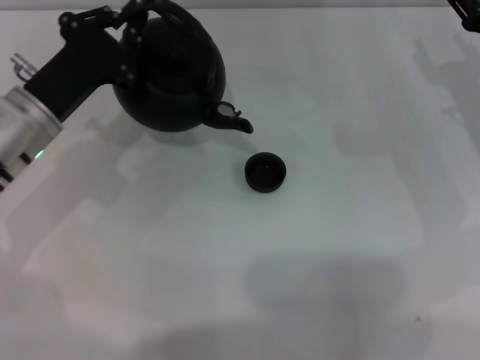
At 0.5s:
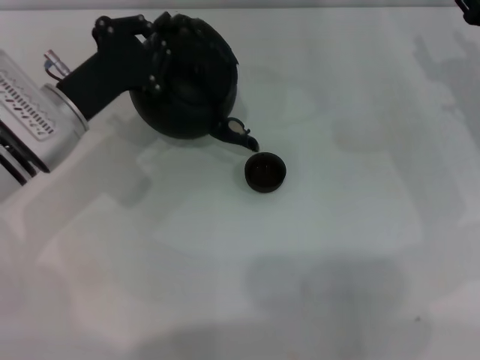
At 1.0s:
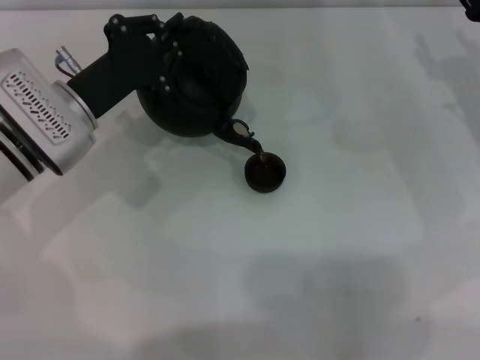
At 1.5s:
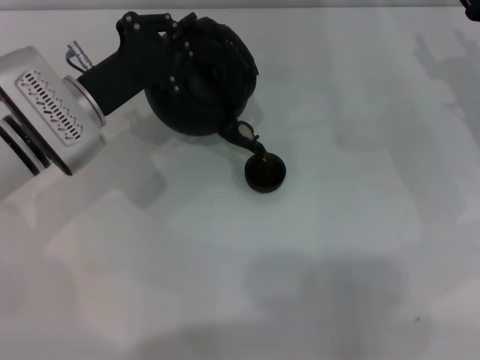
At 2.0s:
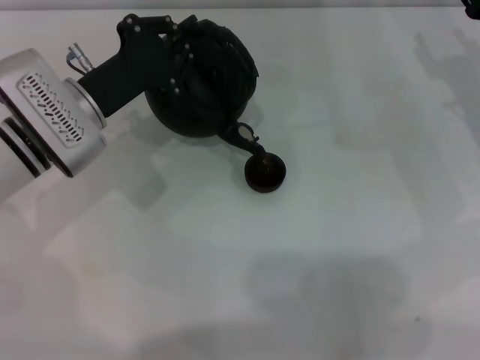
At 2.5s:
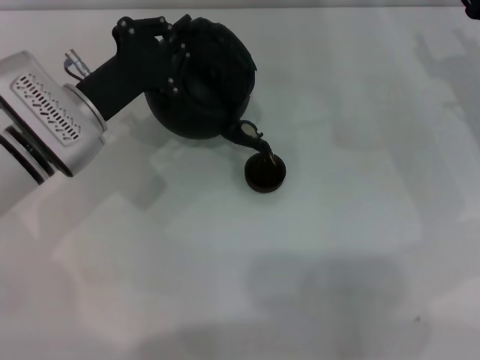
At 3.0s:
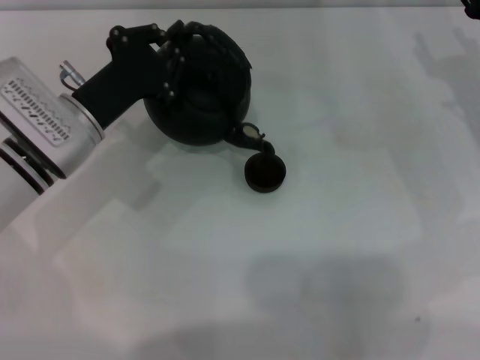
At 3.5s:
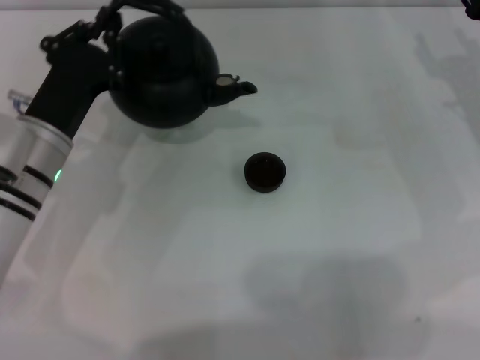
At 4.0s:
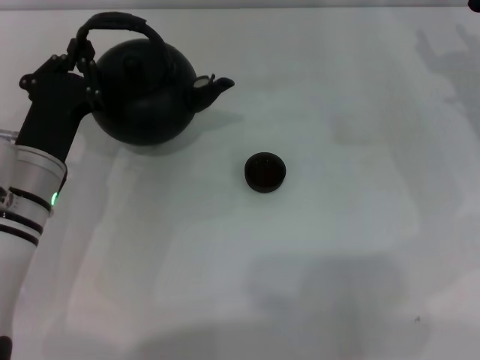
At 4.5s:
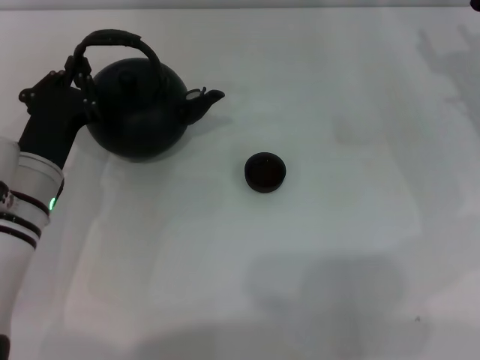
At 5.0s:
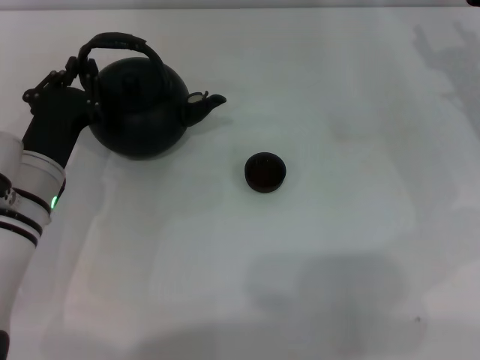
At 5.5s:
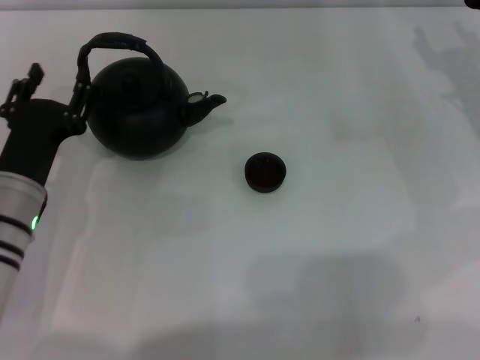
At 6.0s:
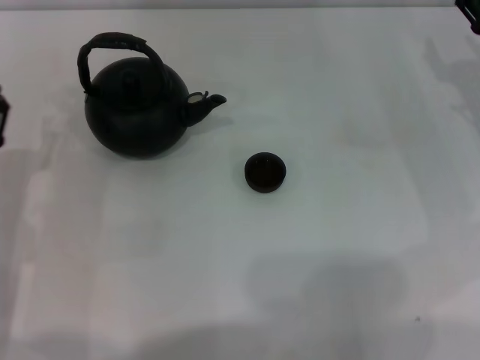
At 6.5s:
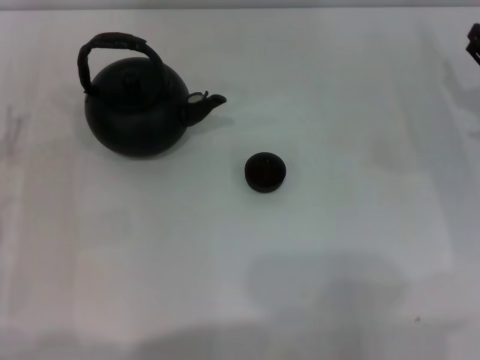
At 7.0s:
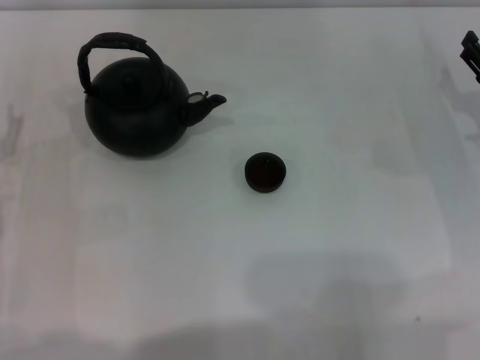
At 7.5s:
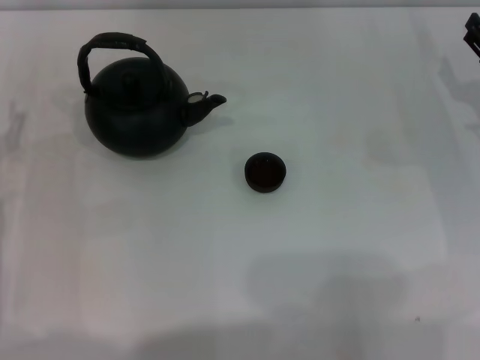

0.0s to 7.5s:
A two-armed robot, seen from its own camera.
Task of the whole recording: Grasp the handle of the teapot with one hand and pour tea into the teacup.
Step, 0.0s to 3.0s: Pour tea into the teacup with the left gripper.
Step, 3.5s to 5.5s: Put down the teapot with the left gripper.
0.0s to 2.0s: The grippers make only small movements.
2.0s to 4.0s: The left gripper travels backward by roughly 5 cm.
4.0s to 5.5s: The left gripper opens its fingers.
5.5s to 7.5s: The left gripper goes roughly 10 cm to the left, and opens its fingers.

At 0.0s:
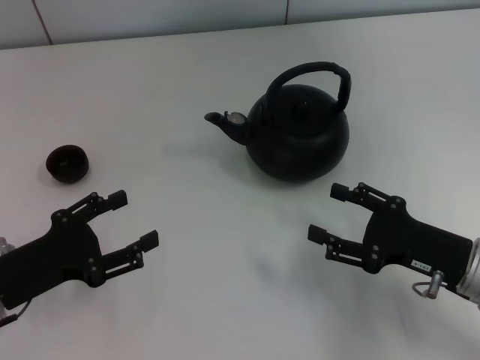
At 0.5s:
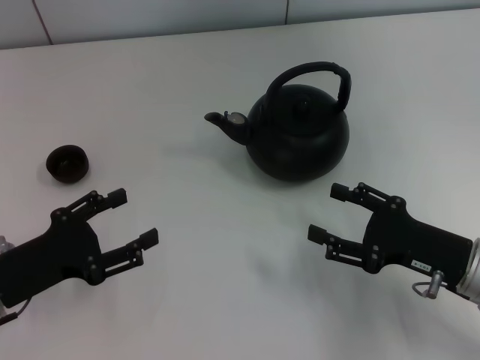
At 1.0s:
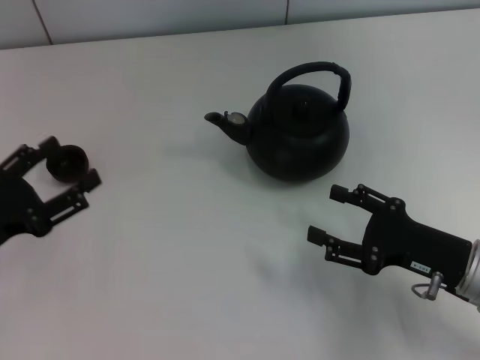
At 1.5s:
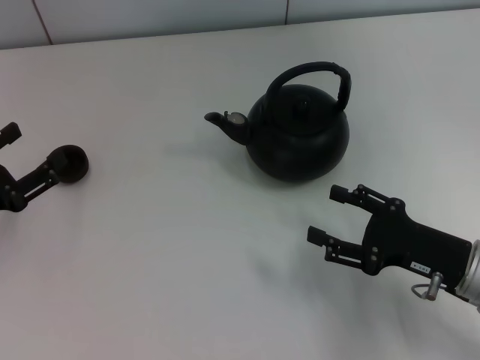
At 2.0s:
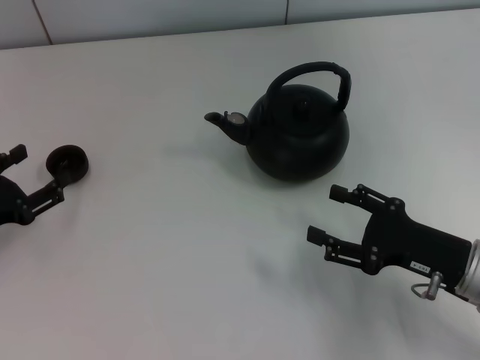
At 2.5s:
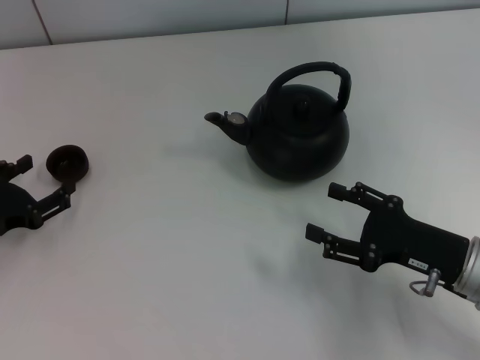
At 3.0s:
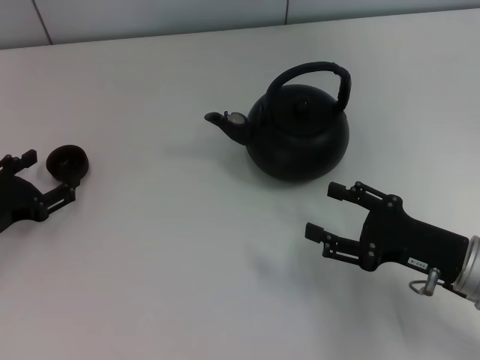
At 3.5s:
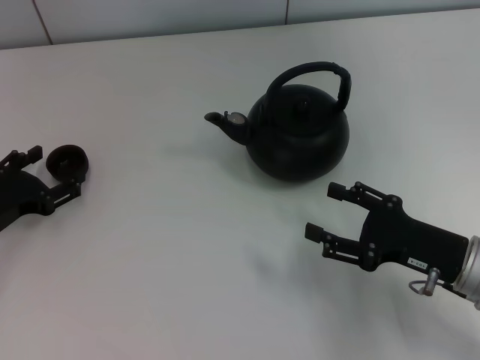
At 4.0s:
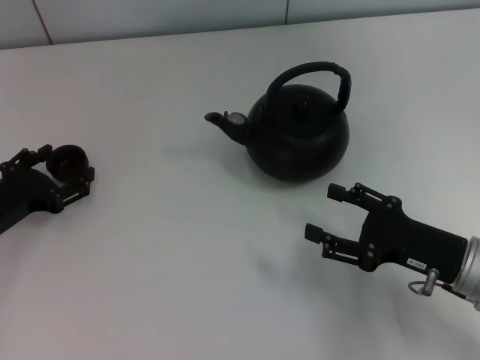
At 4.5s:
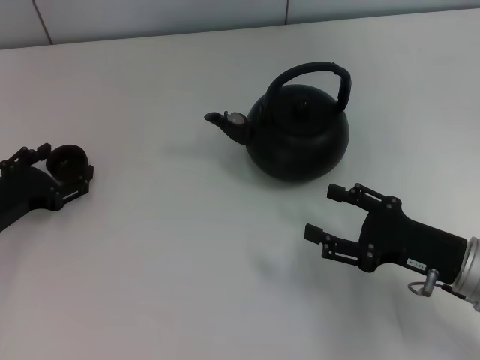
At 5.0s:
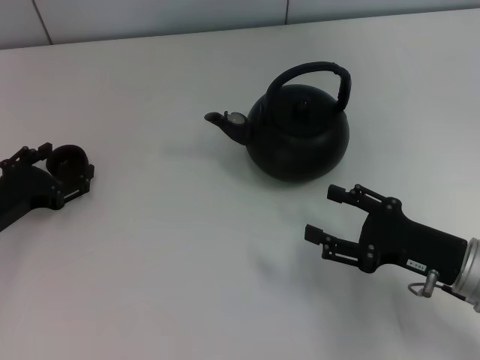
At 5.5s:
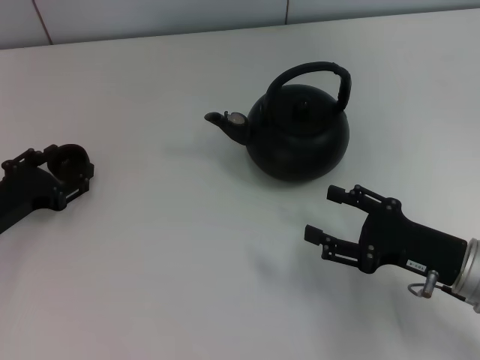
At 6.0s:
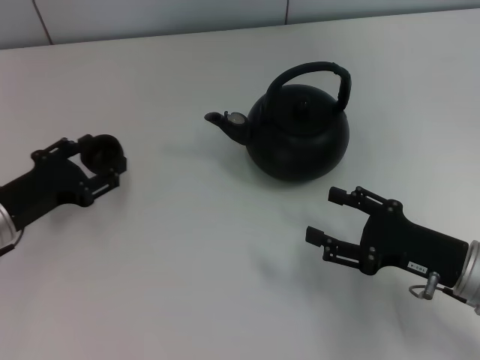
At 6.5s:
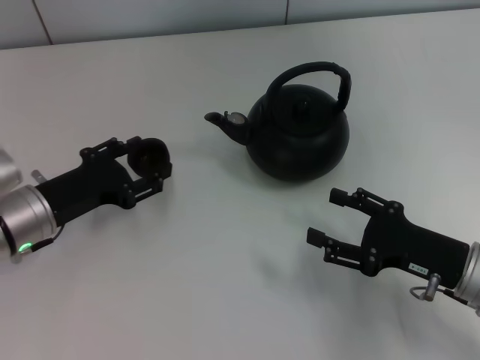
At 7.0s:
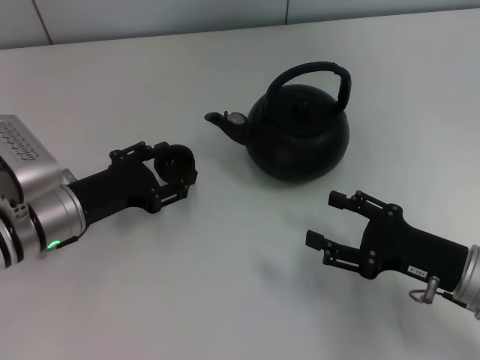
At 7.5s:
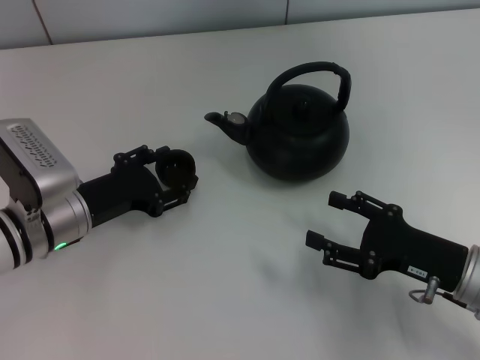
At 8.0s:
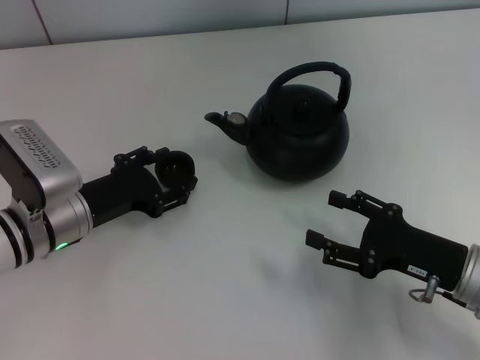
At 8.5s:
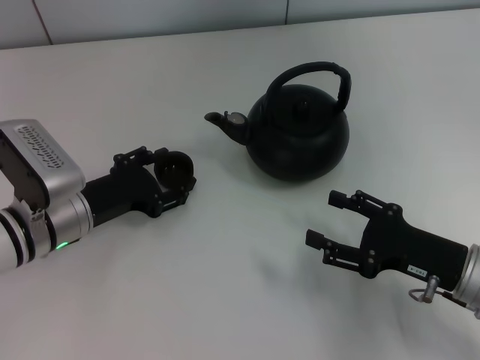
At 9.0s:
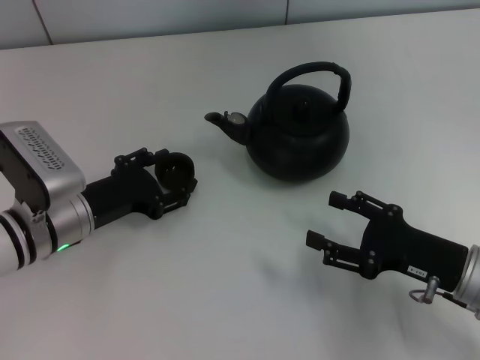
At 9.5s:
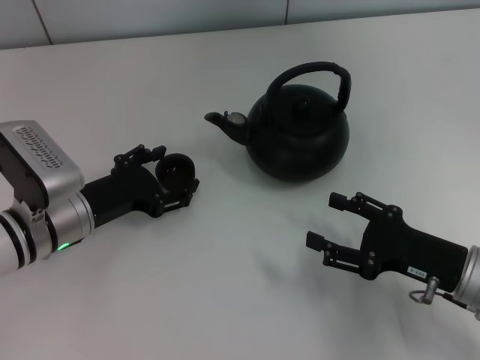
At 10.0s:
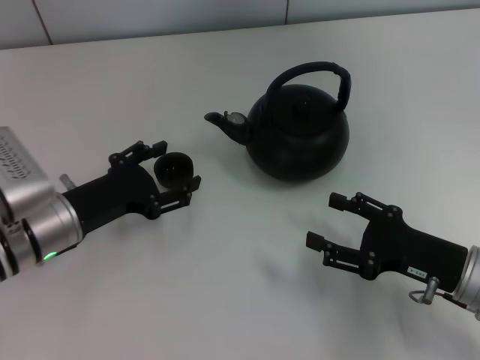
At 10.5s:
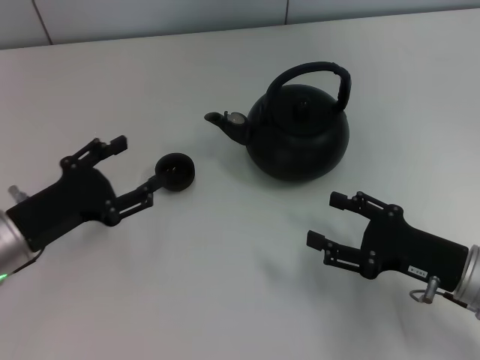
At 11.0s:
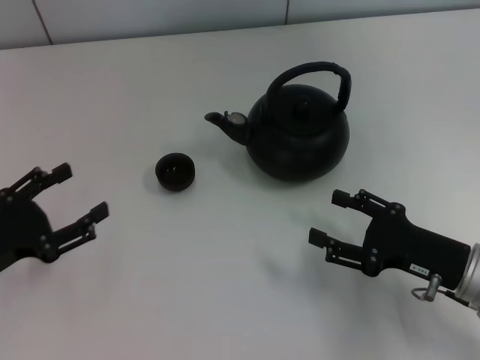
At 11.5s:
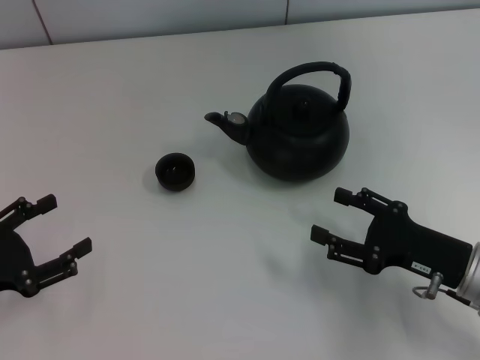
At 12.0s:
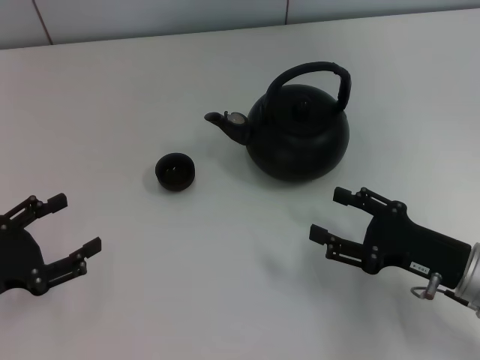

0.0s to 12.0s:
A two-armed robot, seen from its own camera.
Task of the whole recording: Grasp the handle of the teapot with one hand and pour tea into the teacup.
Step, 0.0s to 6.5s: Pick up the teacup with the left gripper.
Step, 7.5s to 10.5s: Place the teacup in the center of view with the left gripper.
0.0s to 2.0s: The left gripper shifts by about 5 cm.
2.0s to 4.0s: There are only small adjustments of the grippers.
4.0s to 6.0s: The left gripper closes.
6.0s to 8.0s: The left gripper moves to the right, roughly 5 cm, and opens up.
8.0s to 10.0s: The left gripper opens.
10.0s to 12.0s: The left gripper moves to the left and backward, approximately 15 cm.

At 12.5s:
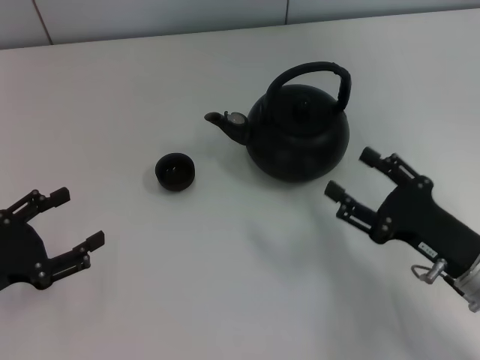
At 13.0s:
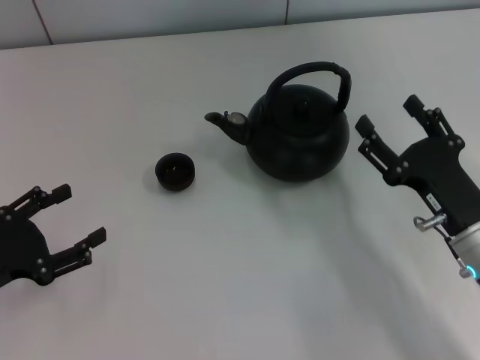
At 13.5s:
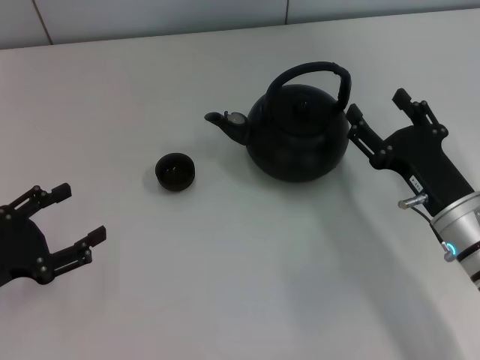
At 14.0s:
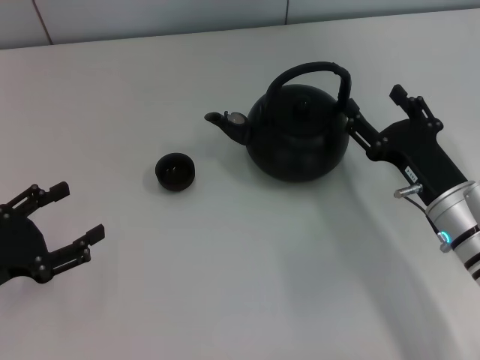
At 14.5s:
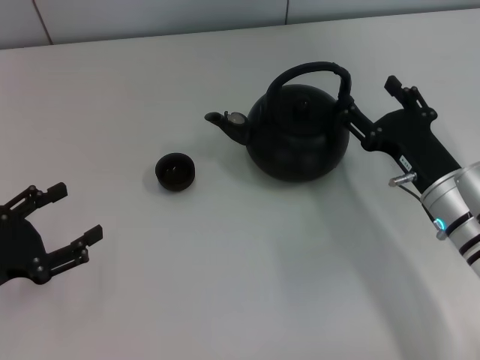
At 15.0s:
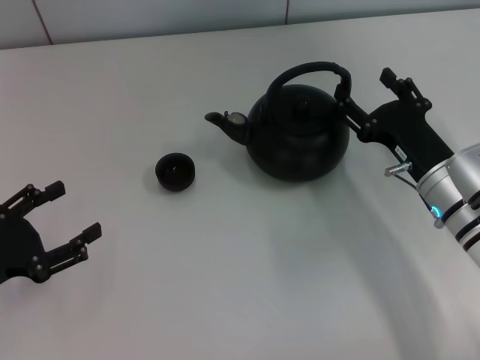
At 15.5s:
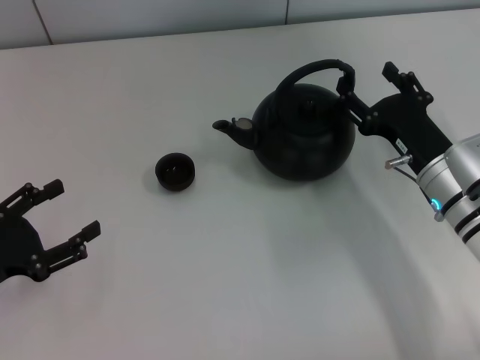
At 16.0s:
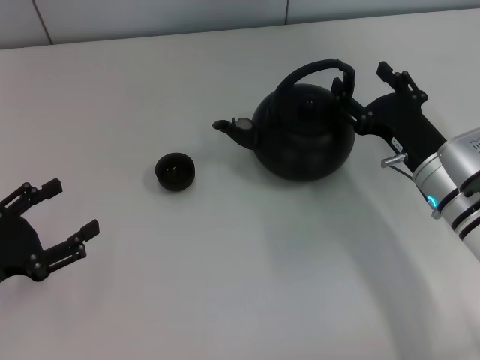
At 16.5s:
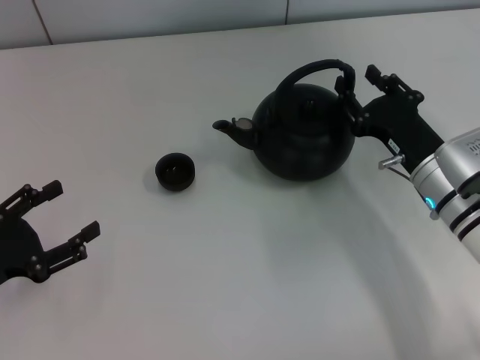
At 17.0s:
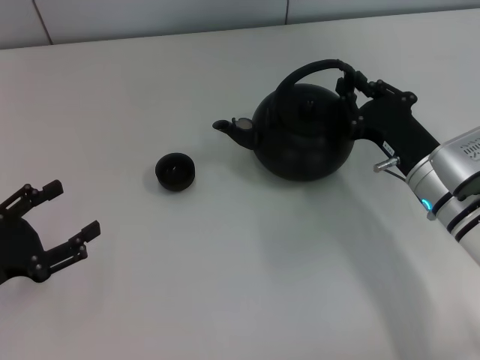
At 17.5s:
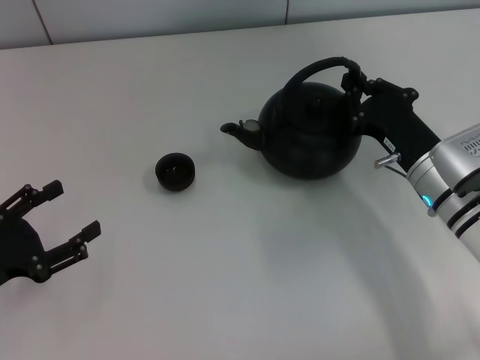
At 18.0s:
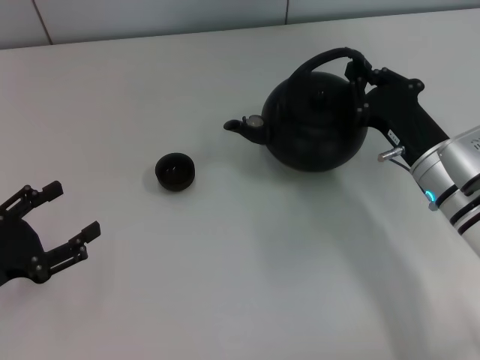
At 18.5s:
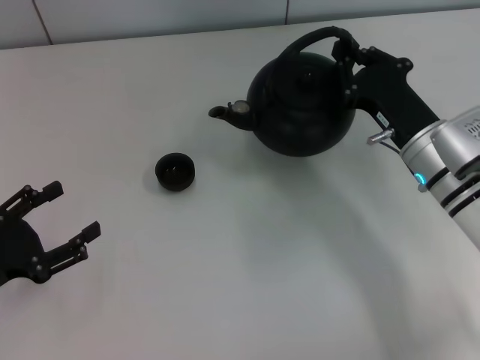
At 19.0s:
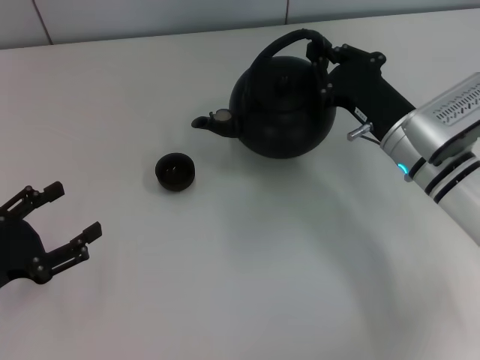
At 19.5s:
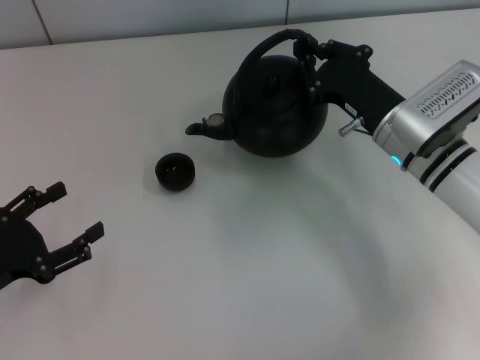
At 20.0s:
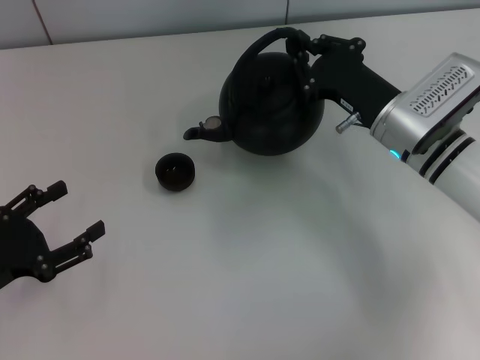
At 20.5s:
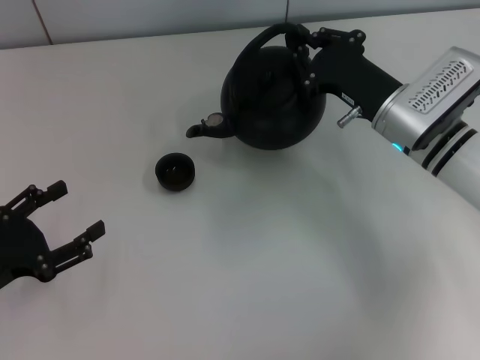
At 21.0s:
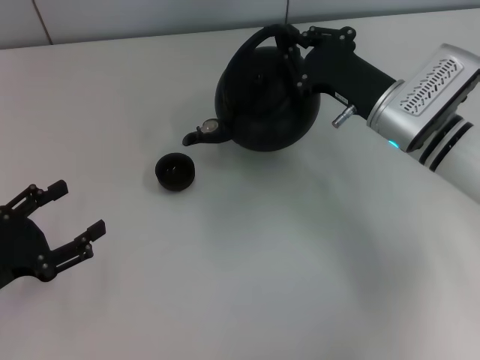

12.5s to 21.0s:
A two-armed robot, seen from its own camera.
Task of the whole recording: Grasp the handle of the teapot with one hand and pour tea into the teacup.
Step, 12.5s to 18.5s: Pick up the teapot with the right gripper.
12.5s to 14.5s: The right gripper heads forward, covering some 5 cm.
14.5s to 16.5s: The grippers stay close to where they were, moving slightly.
16.5s to 19.0s: The right gripper closes up.
19.0s to 21.0s: The grippers move only a little.
